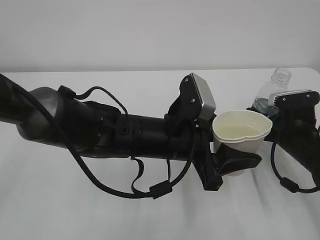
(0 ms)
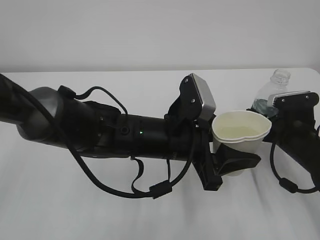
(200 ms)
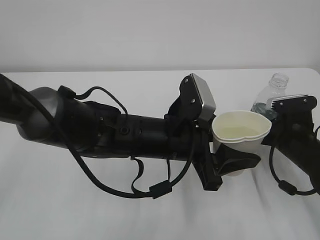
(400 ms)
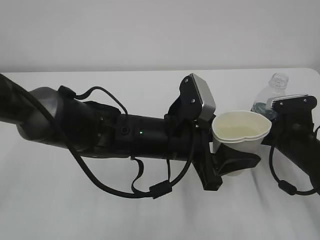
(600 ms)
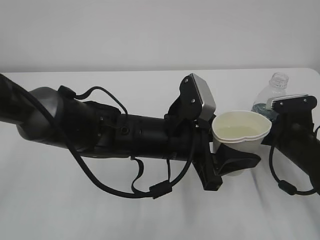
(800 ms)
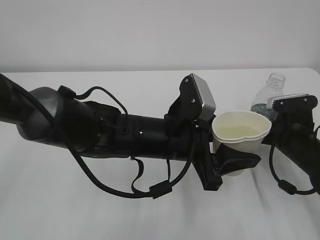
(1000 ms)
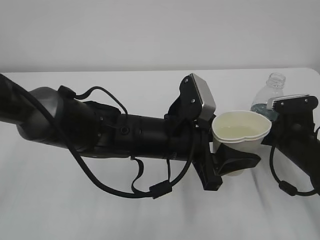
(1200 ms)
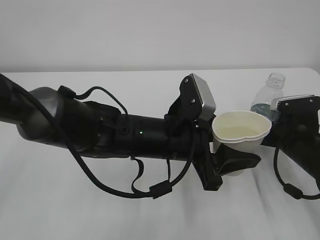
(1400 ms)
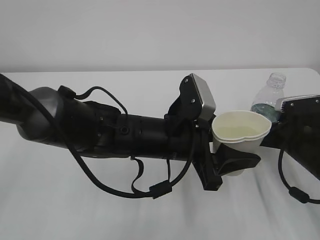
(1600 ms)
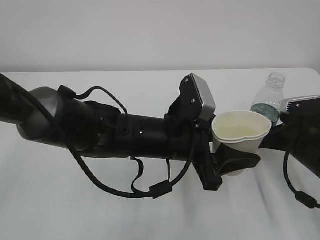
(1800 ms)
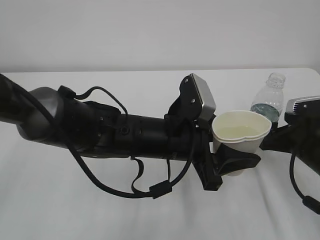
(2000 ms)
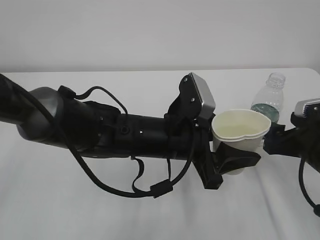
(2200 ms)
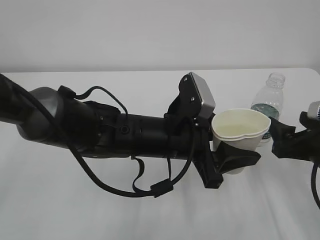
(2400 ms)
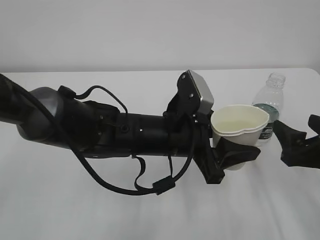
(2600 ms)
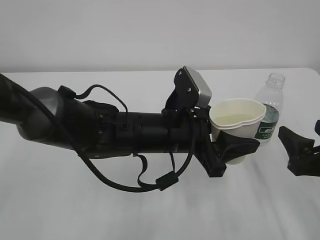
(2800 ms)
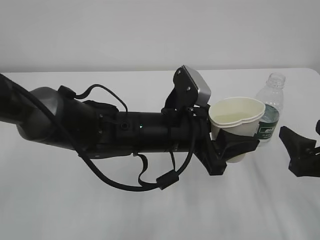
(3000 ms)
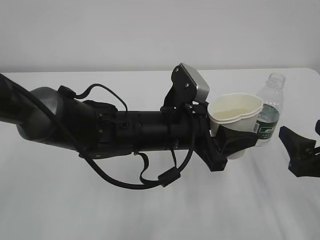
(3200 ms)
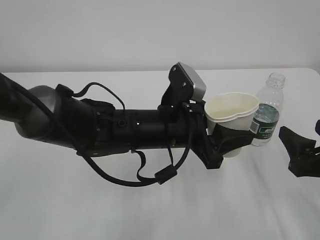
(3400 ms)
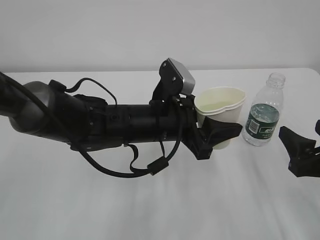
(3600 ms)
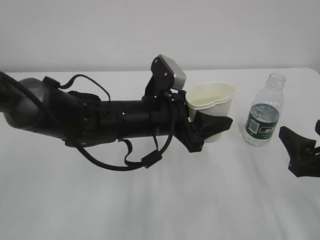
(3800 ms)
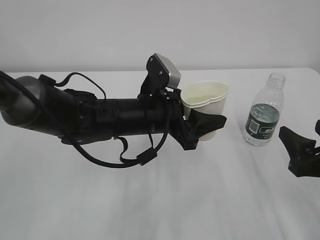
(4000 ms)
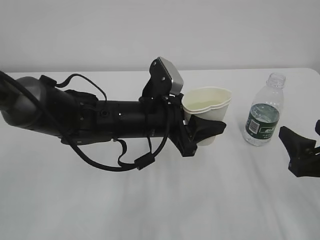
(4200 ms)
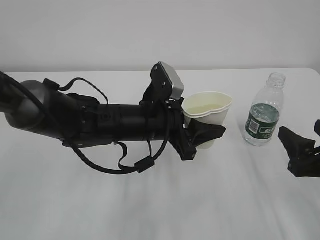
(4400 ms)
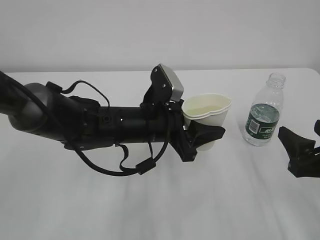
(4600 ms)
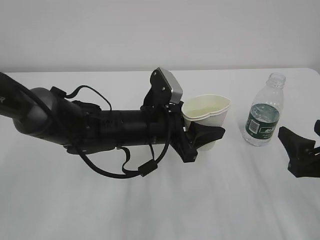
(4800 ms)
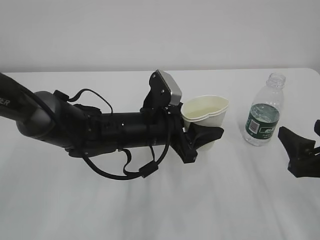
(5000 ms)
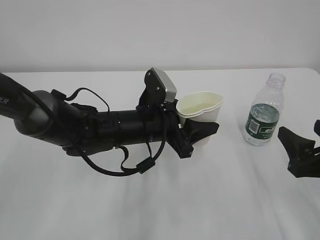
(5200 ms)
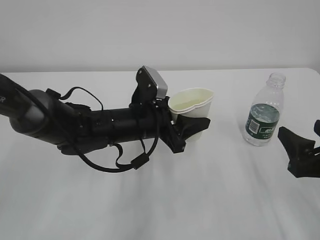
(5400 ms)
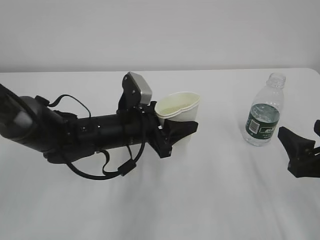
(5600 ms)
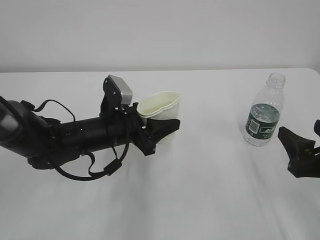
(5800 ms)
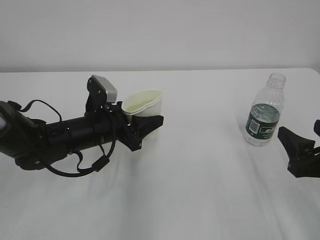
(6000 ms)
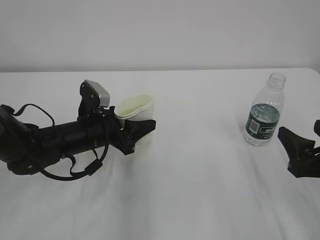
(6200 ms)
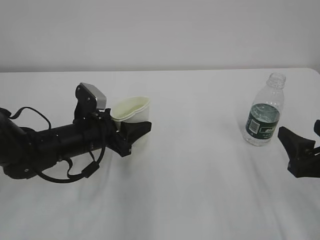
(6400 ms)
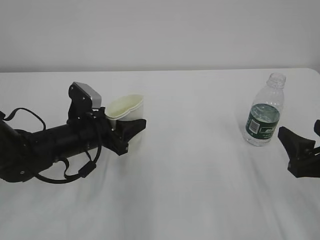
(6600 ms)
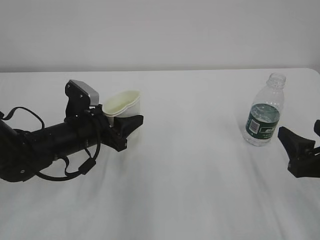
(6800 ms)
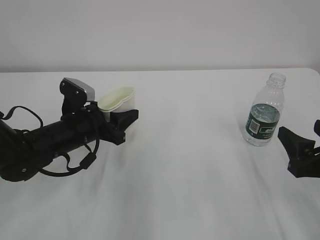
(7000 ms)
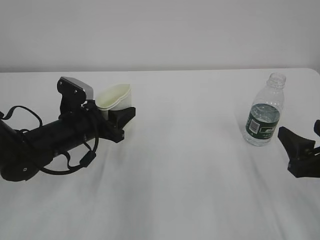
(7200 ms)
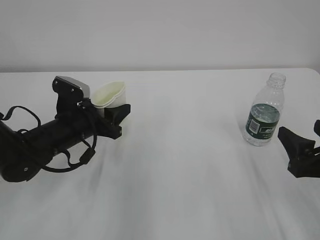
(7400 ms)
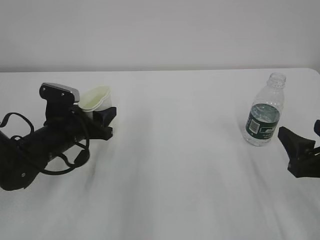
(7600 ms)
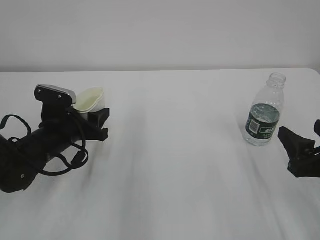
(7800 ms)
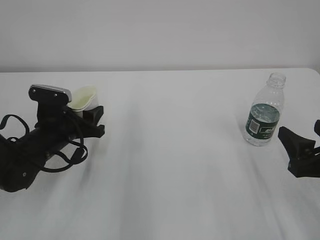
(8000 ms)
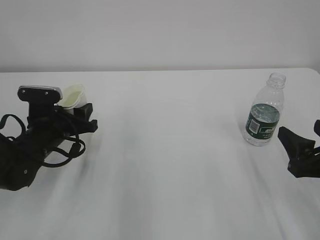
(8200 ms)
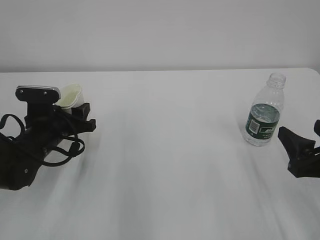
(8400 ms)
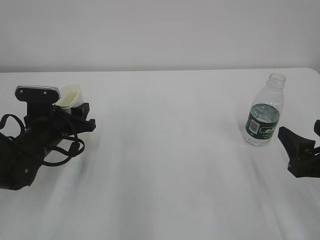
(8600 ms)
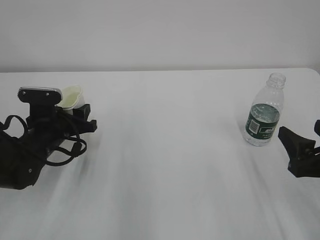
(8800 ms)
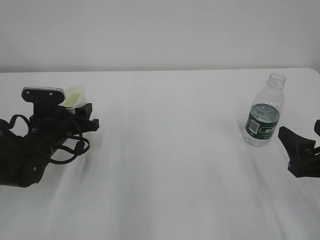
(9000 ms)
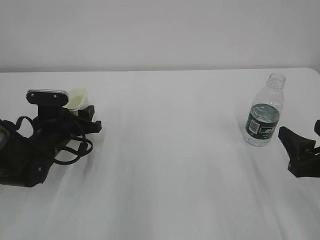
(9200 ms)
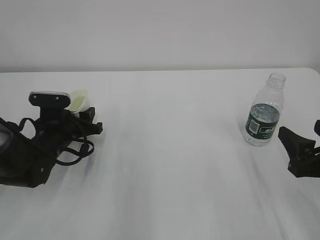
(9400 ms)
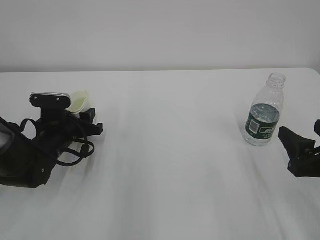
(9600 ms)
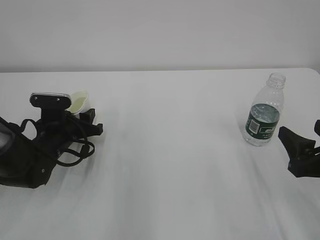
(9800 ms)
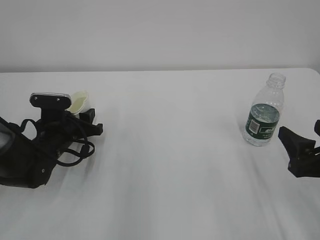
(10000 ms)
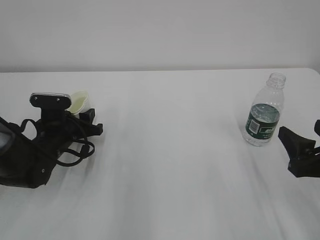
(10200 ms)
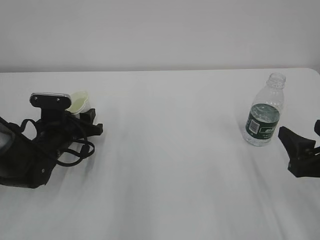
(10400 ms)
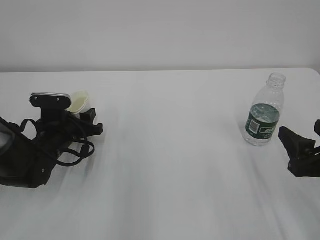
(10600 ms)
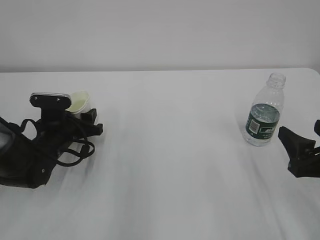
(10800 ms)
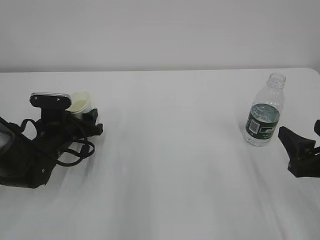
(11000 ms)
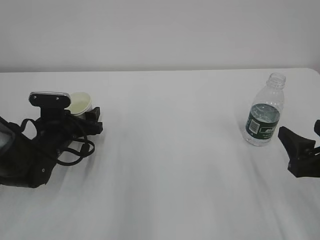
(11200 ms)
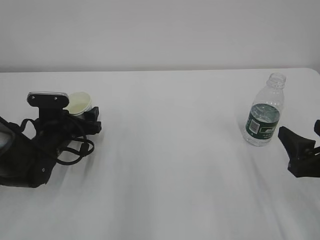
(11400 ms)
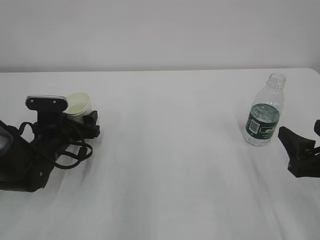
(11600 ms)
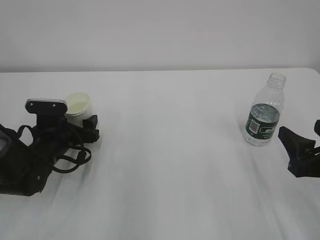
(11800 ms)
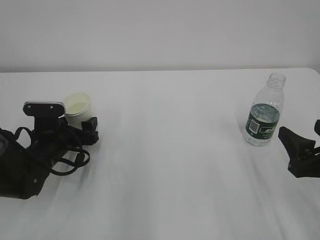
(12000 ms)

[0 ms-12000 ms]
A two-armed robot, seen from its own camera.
0 ms to 1600 ms: The right gripper opens.
1600 ms to 3000 ms: The right gripper is displaced backward and upward by roughly 10 cm.
3000 ms to 4400 ms: The left gripper moves approximately 5 cm.
4400 ms to 6000 ms: The left gripper travels to the left by about 10 cm.
6000 ms to 7600 ms: The left gripper heads to the left, covering some 5 cm.
7600 ms to 10400 ms: The grippers stay close to where they were, moving slightly.
10400 ms to 12000 ms: The left gripper opens.

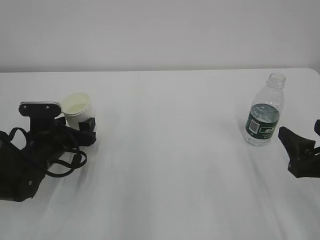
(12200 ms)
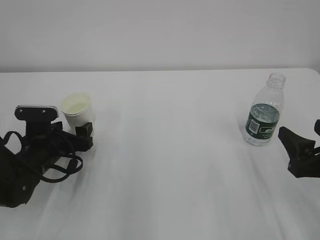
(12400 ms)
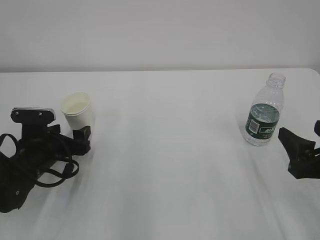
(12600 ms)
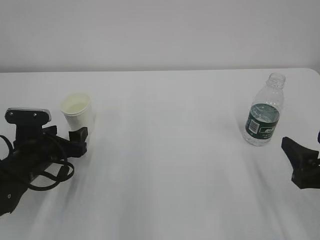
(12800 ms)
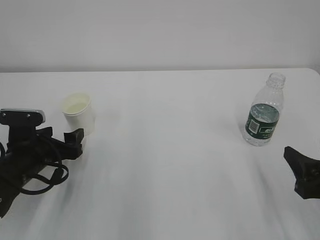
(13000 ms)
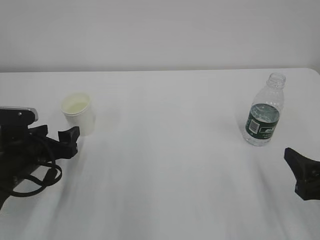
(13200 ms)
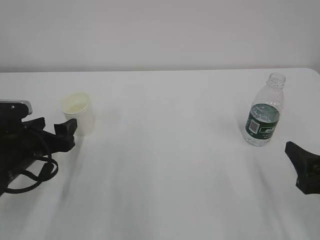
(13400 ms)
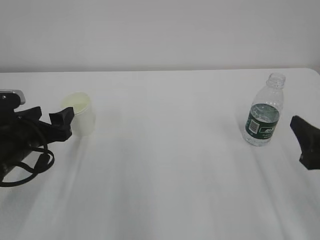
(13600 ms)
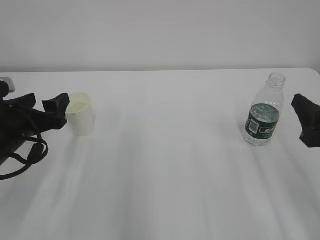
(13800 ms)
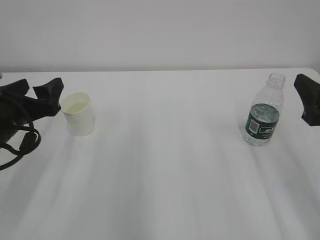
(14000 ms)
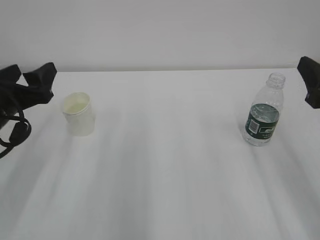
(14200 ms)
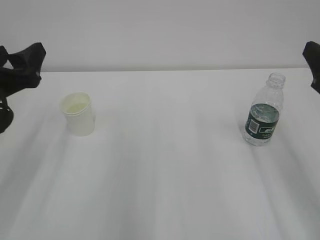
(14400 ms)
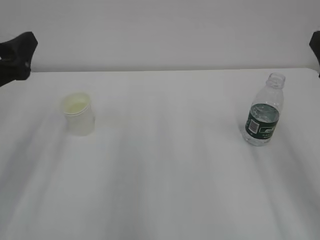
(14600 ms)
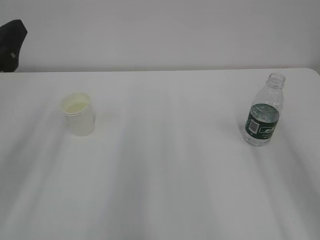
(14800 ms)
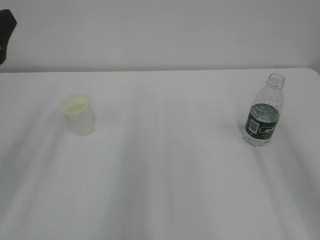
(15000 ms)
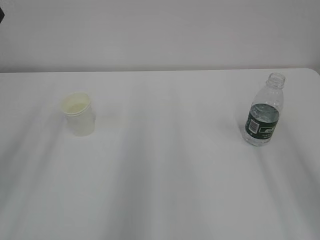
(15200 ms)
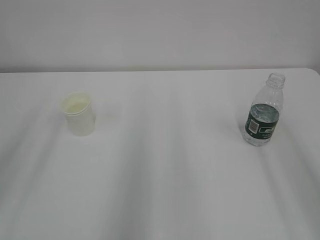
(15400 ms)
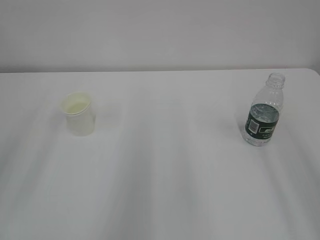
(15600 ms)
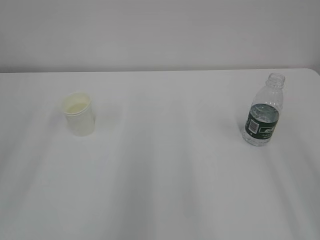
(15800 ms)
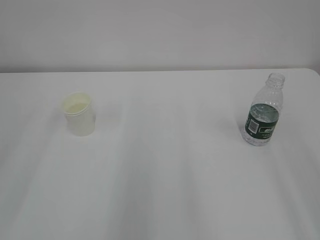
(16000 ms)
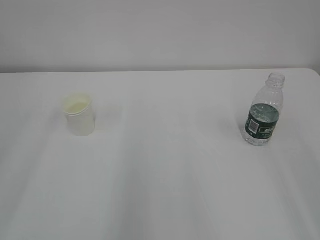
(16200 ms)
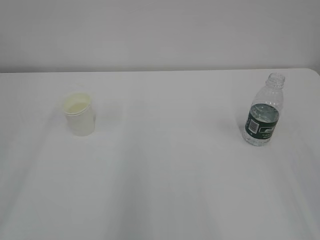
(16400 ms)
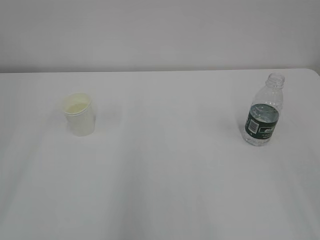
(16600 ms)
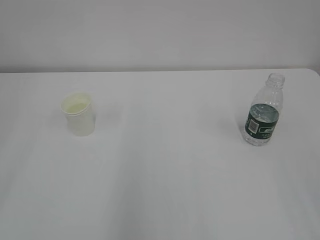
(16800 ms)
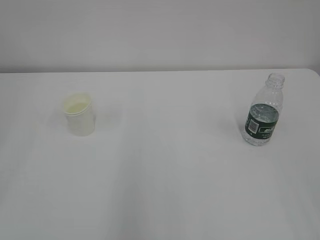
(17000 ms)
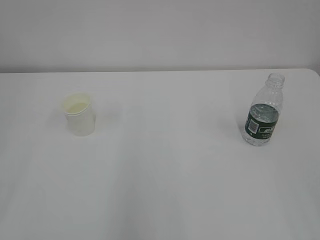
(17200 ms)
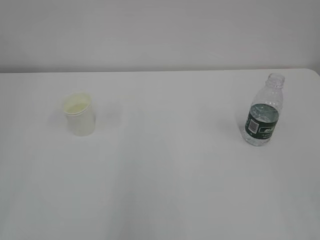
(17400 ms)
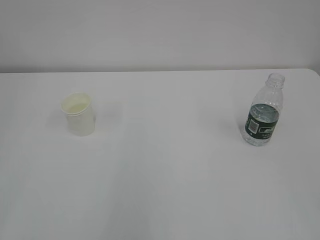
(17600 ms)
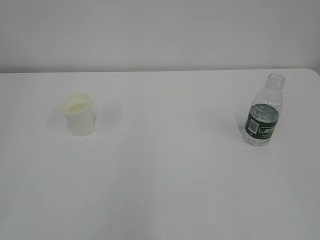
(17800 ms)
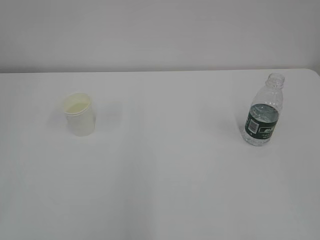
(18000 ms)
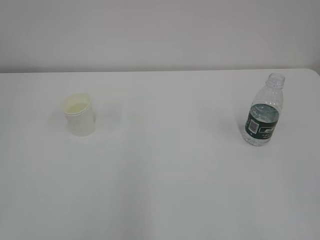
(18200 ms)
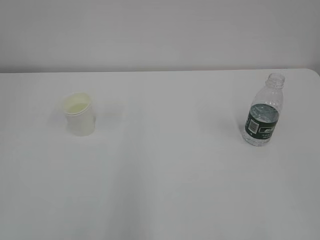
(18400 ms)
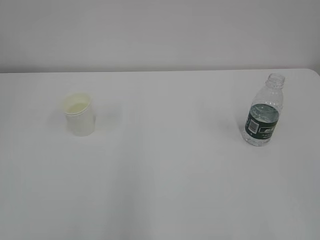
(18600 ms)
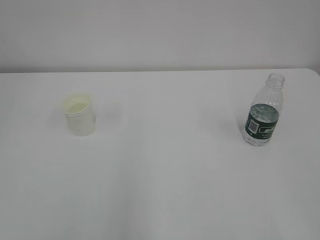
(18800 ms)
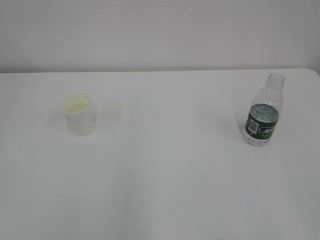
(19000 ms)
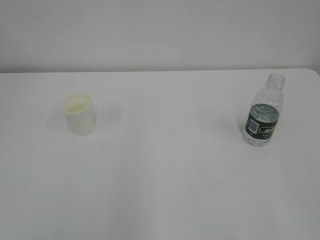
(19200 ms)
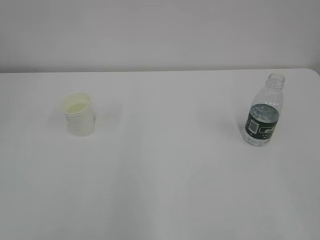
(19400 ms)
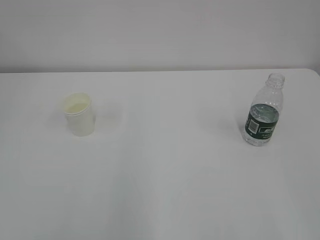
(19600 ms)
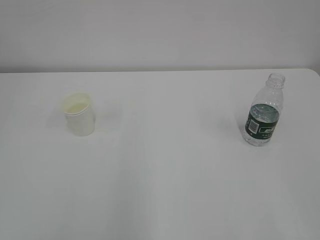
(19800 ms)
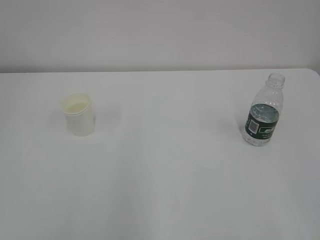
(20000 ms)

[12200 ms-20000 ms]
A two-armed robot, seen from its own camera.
12200 ms to 13800 ms: The left gripper heads upward and backward, covering some 10 cm.
13800 ms to 15400 ms: The right gripper moves upward, roughly 15 cm. The left gripper heads upward and backward, covering about 20 cm.

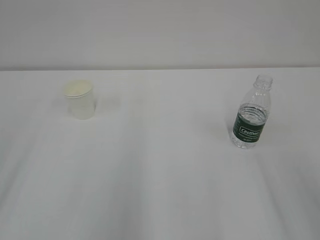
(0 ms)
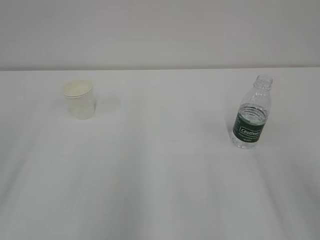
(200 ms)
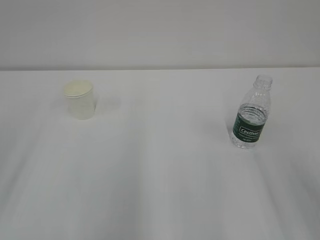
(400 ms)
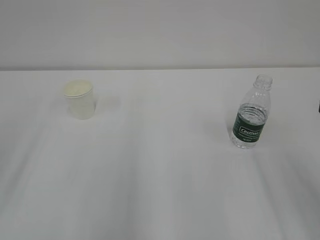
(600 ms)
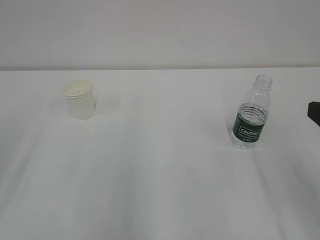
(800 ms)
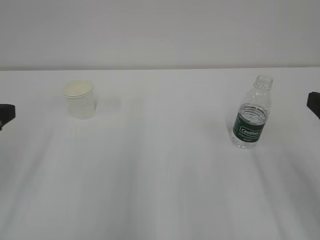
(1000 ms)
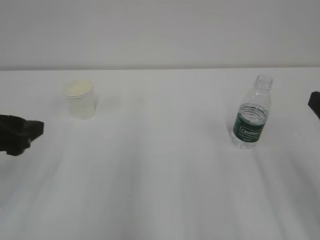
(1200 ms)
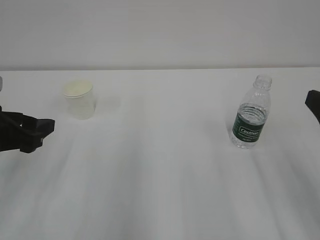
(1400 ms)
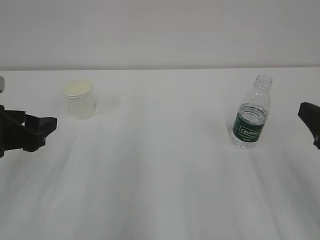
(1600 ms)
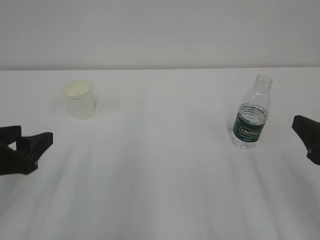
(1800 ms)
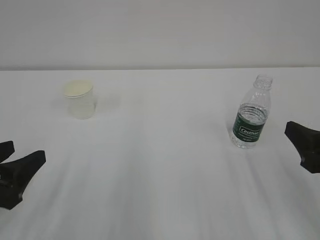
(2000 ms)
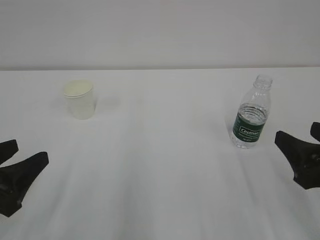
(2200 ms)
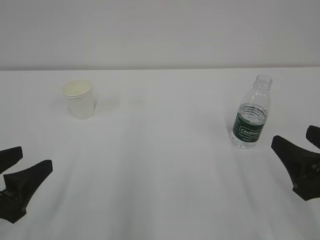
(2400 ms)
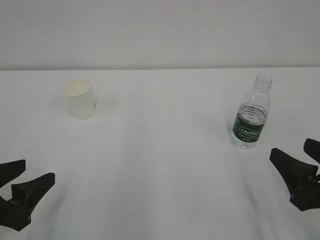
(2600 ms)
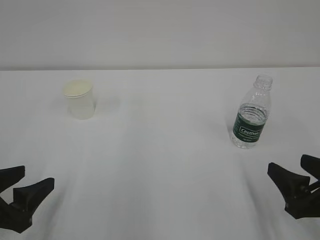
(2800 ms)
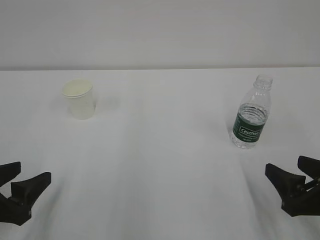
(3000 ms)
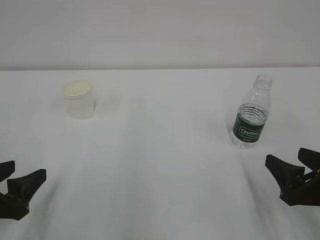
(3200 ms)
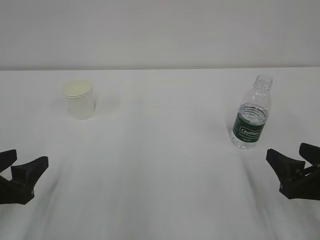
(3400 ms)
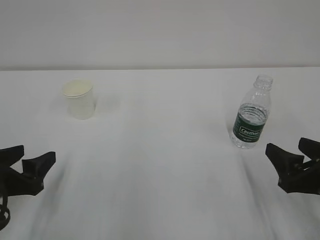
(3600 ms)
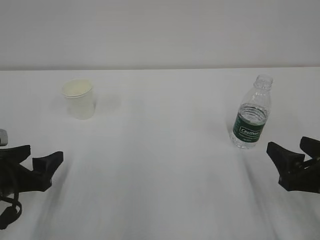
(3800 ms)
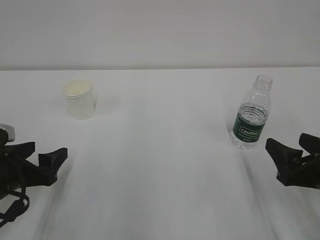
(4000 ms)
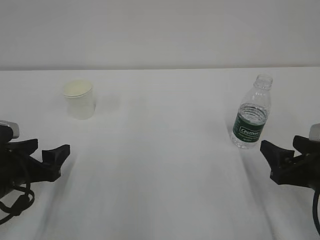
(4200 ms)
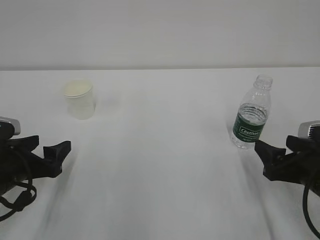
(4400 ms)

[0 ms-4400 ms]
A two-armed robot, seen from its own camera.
0 ms to 1400 ms: The left gripper heads forward, downward and to the right, covering approximately 15 cm.
1400 ms to 3000 ms: The left gripper moves downward and backward, about 10 cm; the right gripper moves downward, about 10 cm.
3000 ms to 4400 ms: Both grippers travel together forward, approximately 5 cm.
